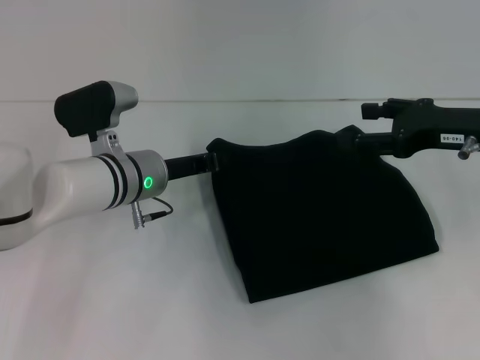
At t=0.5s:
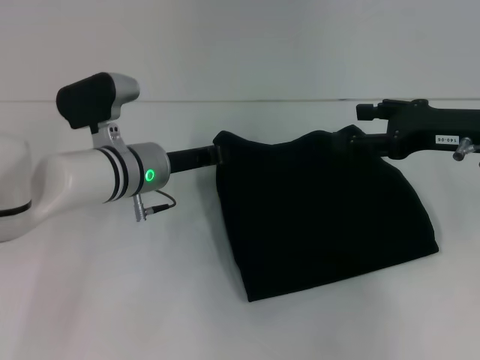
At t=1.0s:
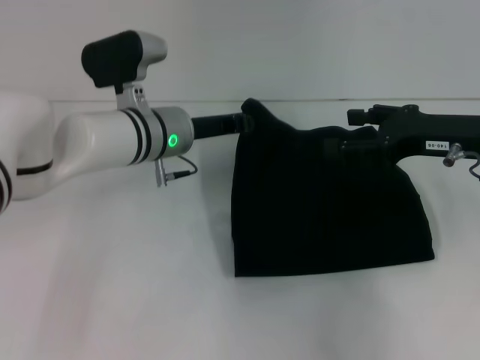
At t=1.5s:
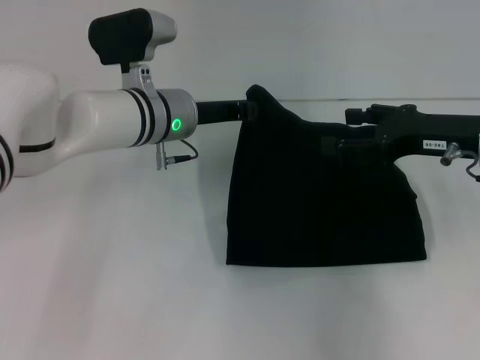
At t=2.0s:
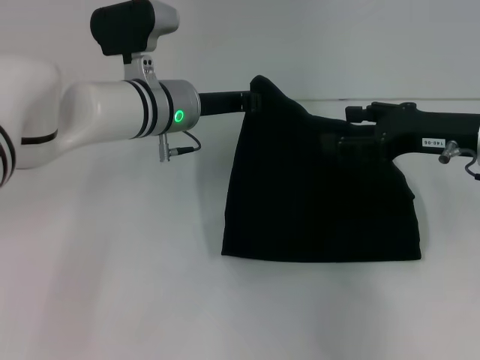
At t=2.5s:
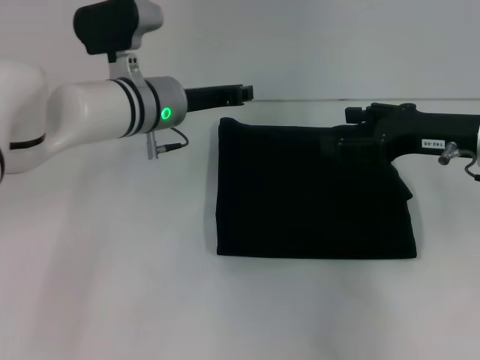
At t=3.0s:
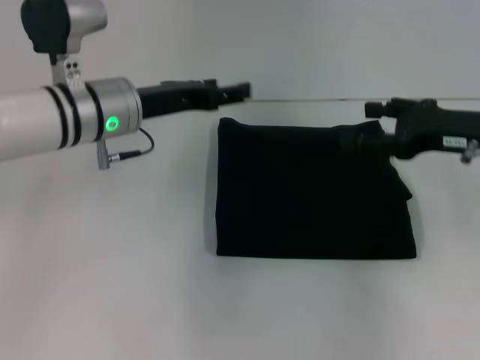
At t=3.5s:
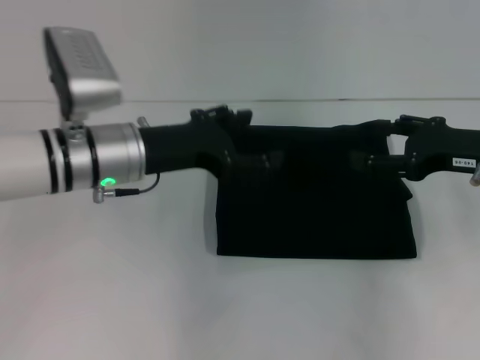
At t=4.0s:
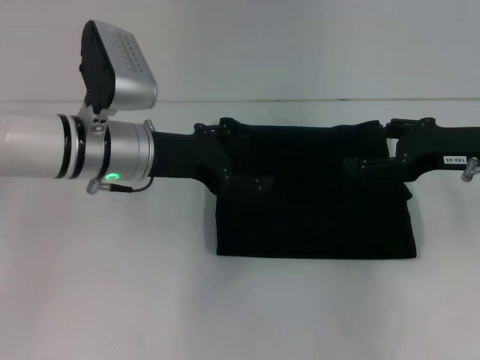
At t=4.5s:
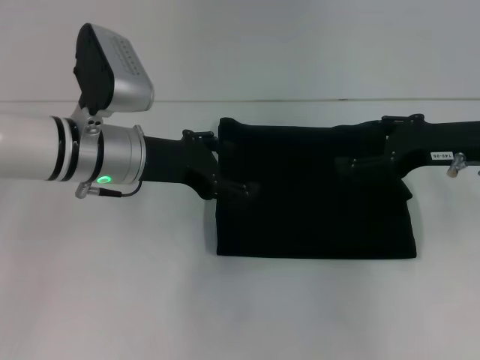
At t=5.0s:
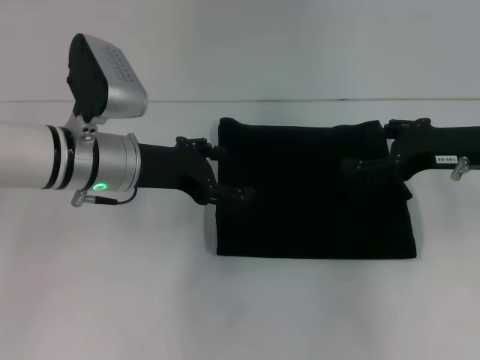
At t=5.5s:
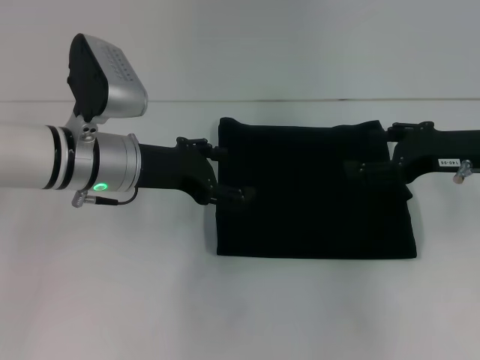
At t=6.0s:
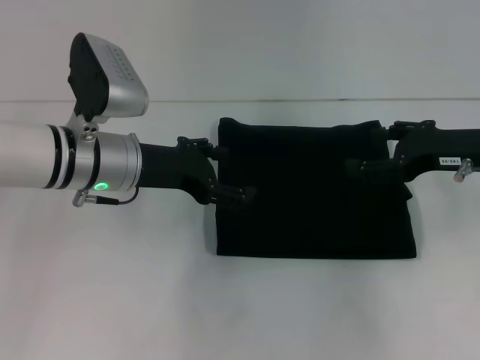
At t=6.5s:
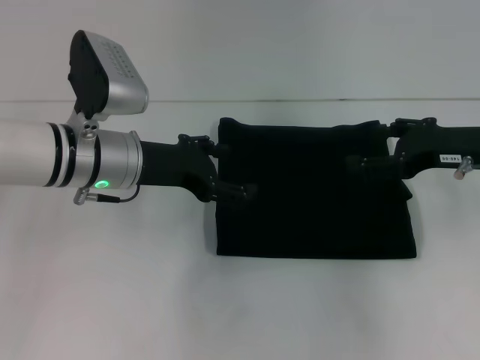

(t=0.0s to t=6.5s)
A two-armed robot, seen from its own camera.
t=0.0s - t=2.0s: The left gripper goes about 5 cm upward.
t=2.0s - t=4.5s: The left gripper goes some 10 cm backward and to the left, and opens its fingers.
t=4.5s - t=6.5s: The two grippers keep their place.

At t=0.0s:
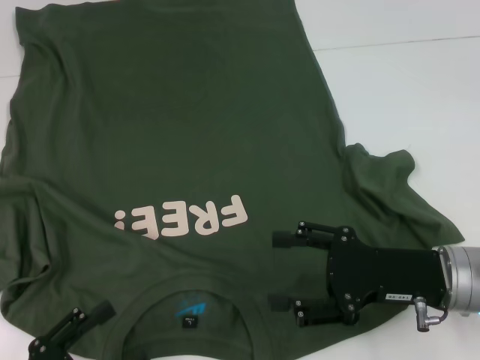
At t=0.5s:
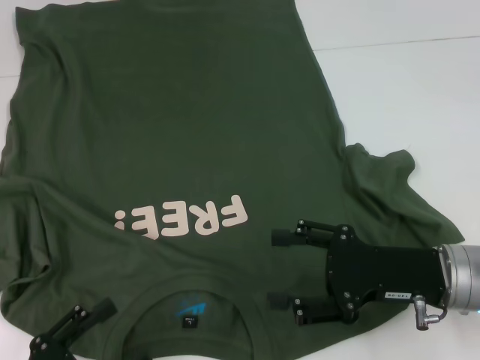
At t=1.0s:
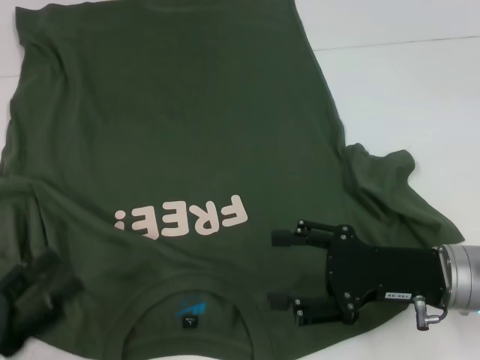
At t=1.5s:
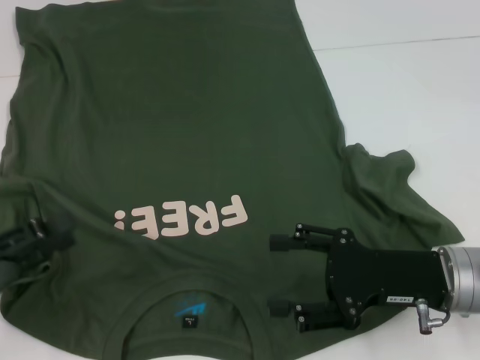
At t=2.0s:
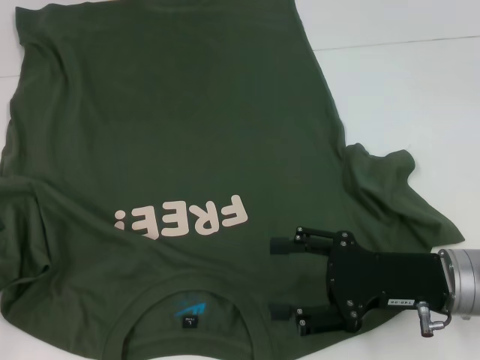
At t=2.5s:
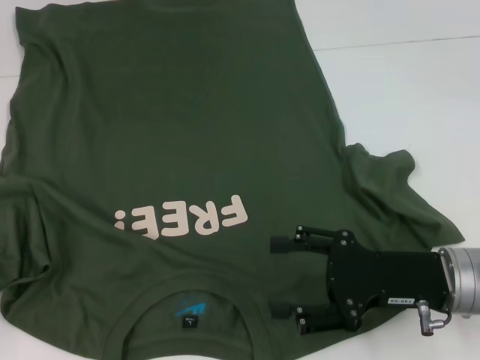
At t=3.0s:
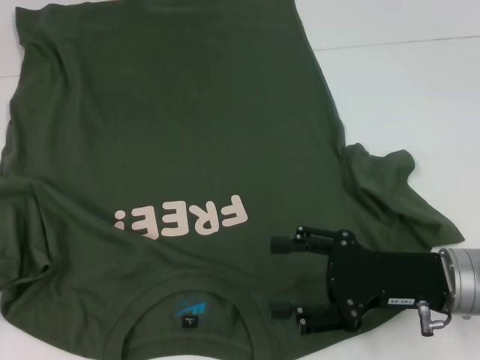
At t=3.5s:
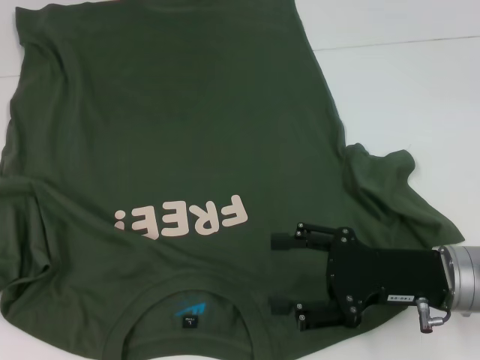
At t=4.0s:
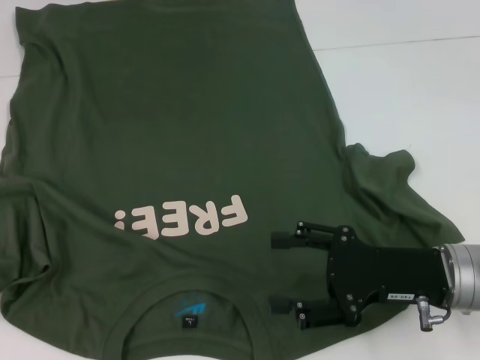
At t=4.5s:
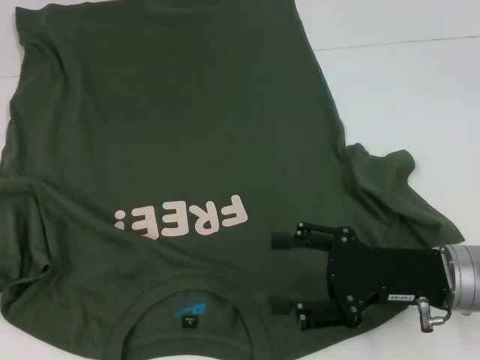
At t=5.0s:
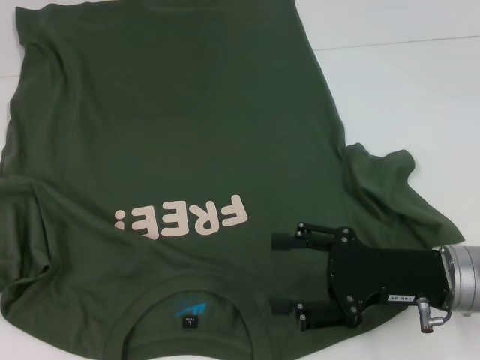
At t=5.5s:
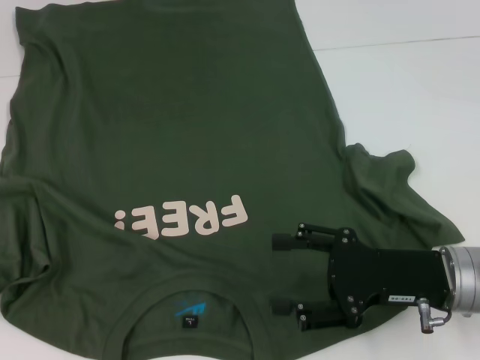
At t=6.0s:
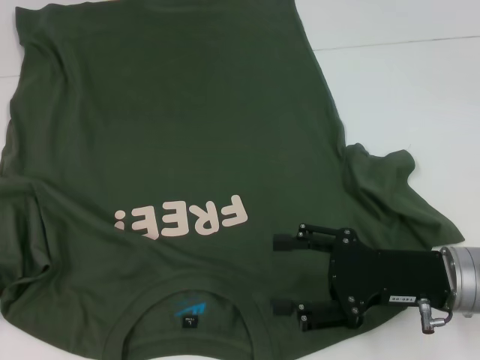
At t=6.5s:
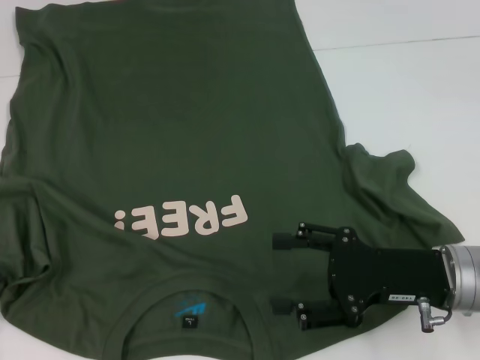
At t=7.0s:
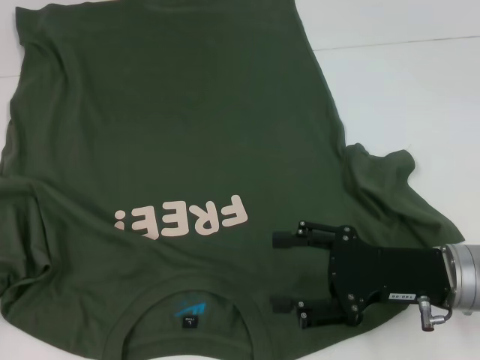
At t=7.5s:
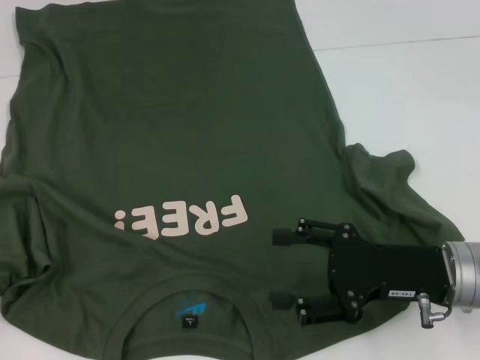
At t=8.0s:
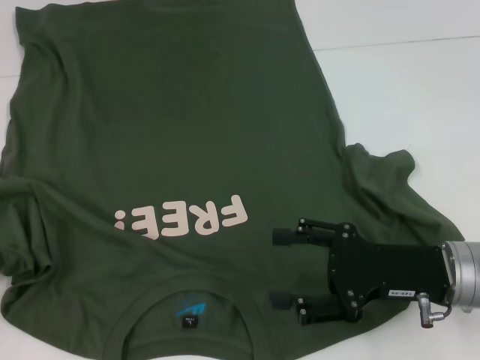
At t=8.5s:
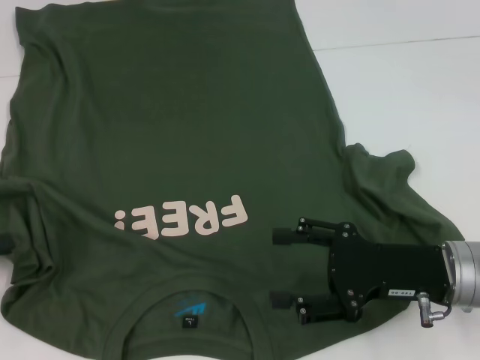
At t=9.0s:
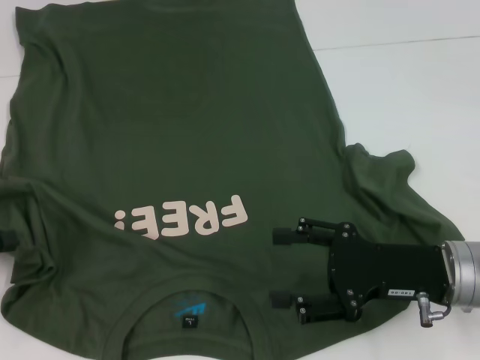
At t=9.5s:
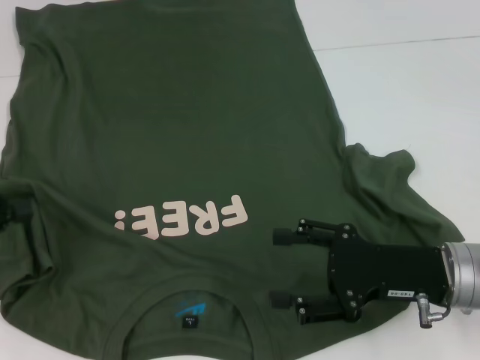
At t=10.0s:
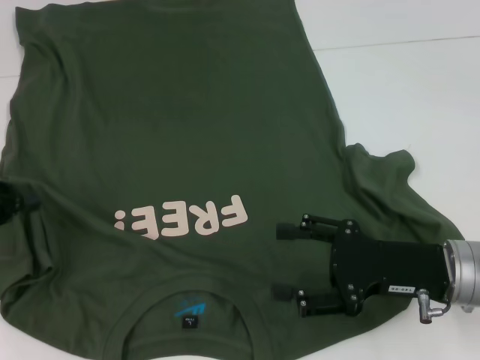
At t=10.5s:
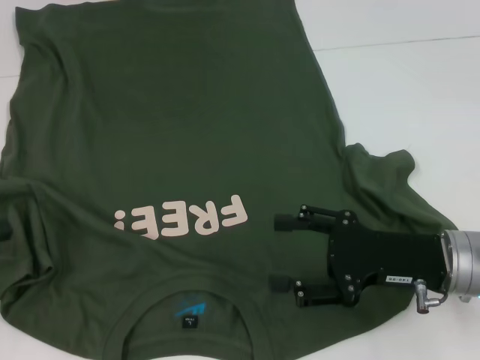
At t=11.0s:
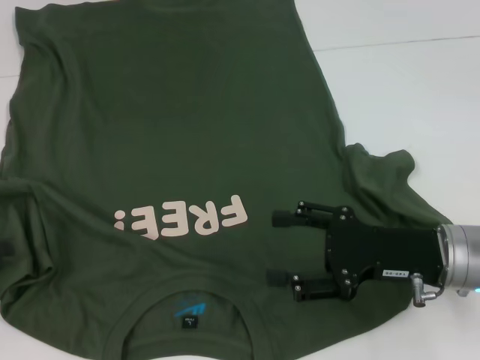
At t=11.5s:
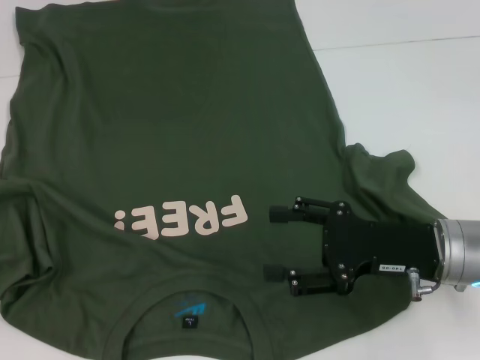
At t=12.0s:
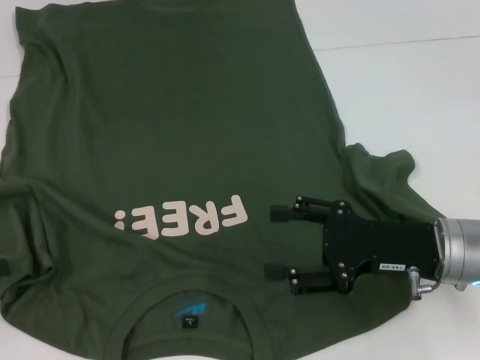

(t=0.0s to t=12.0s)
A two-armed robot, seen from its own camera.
t=0.0s - t=2.0s: The left gripper heads to the left, forward and upward, covering approximately 20 cm.
t=4.0s - t=6.0s: Both grippers stay put.
t=6.0s - t=8.0s: The left gripper closes.
t=8.0s - t=10.0s: The left gripper changes place by roughly 5 cm.
t=10.0s - t=12.0s: The left gripper changes place by approximately 5 cm, and opens.

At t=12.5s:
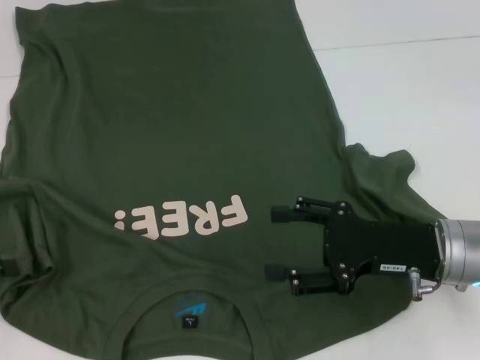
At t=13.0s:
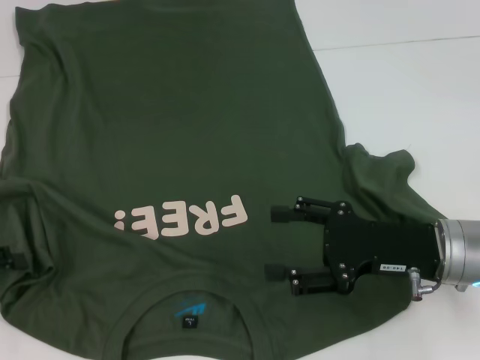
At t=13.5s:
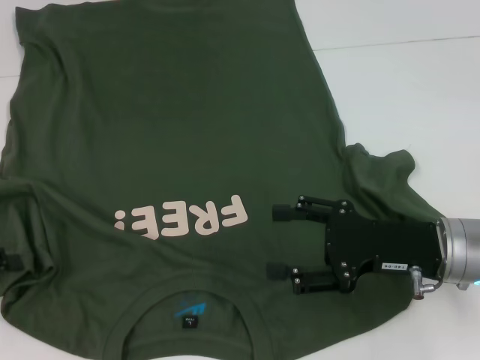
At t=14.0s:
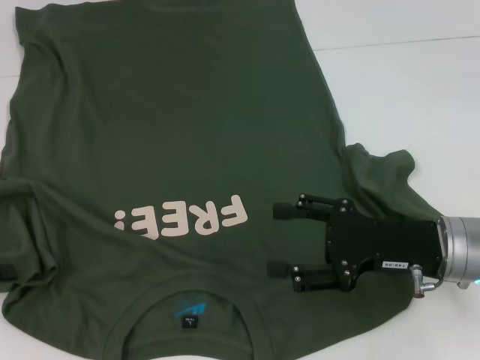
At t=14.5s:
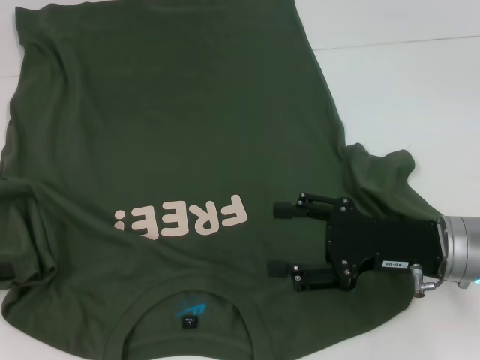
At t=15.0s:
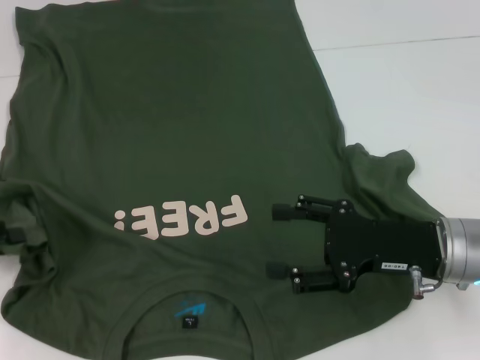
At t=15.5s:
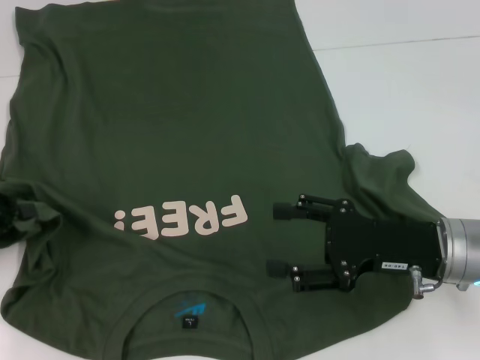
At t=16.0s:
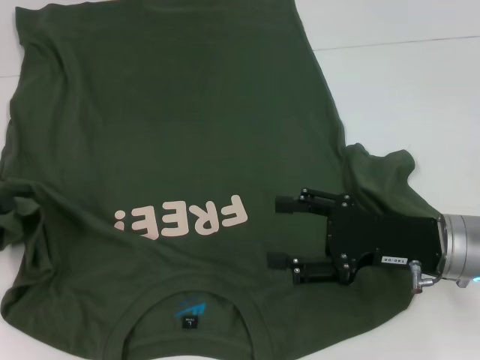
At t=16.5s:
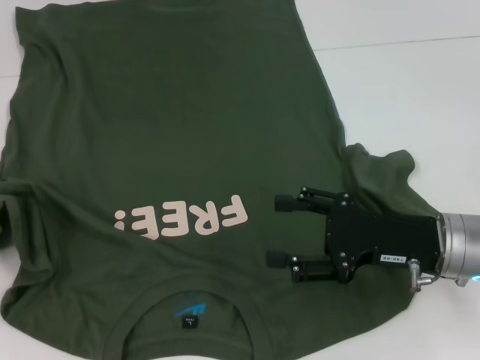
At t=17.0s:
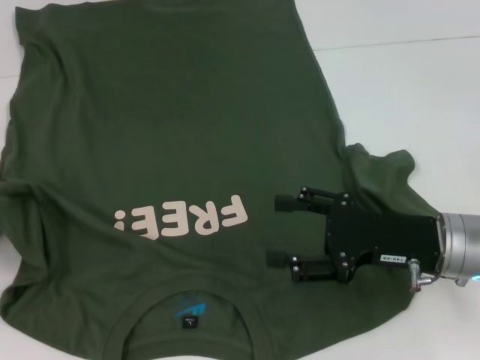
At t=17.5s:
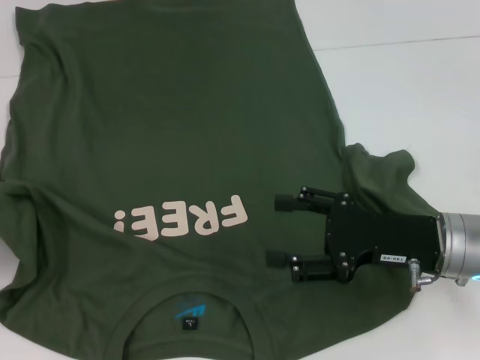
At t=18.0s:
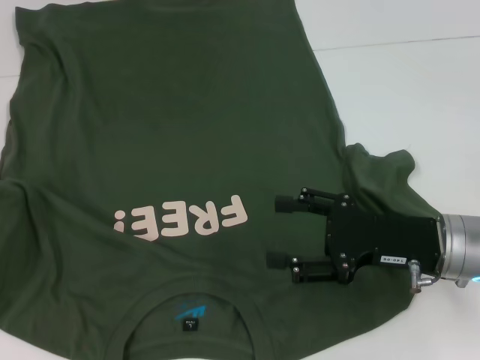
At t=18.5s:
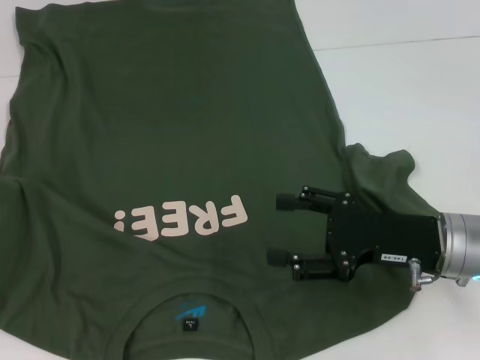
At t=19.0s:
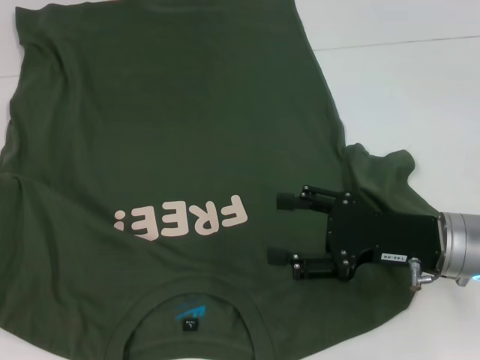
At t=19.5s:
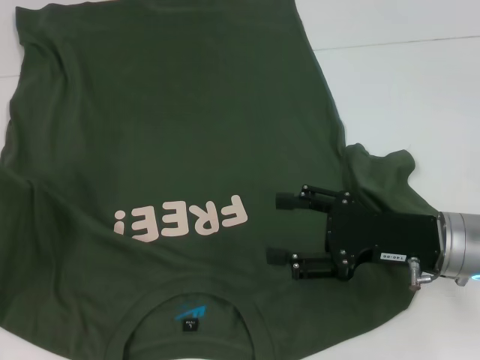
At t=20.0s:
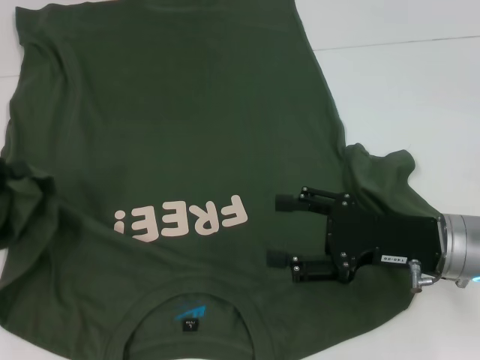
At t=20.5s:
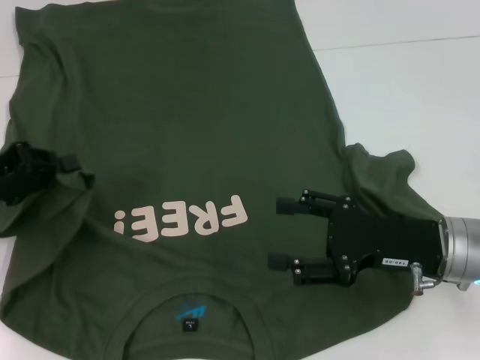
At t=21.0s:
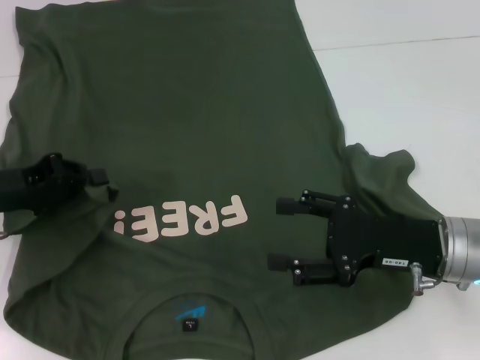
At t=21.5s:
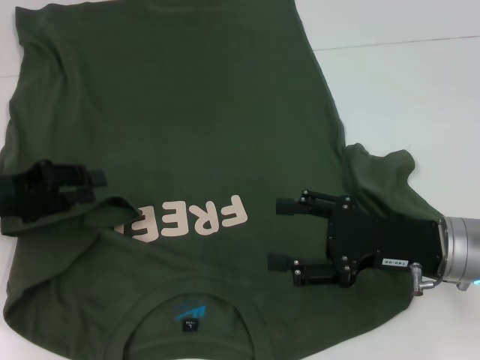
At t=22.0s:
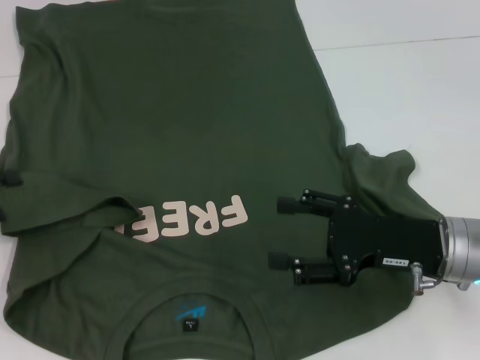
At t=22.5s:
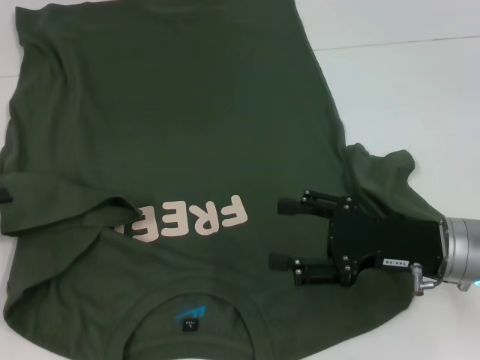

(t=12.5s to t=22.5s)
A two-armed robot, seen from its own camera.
t=14.5s - t=16.5s: There are only small adjustments of the grippers.
t=16.5s - t=18.5s: The left gripper changes place by roughly 5 cm.
t=18.5s - t=20.5s: The left gripper heads to the right and forward, covering roughly 15 cm.
t=20.5s - t=22.5s: The left gripper goes some 5 cm to the left, and opens.
